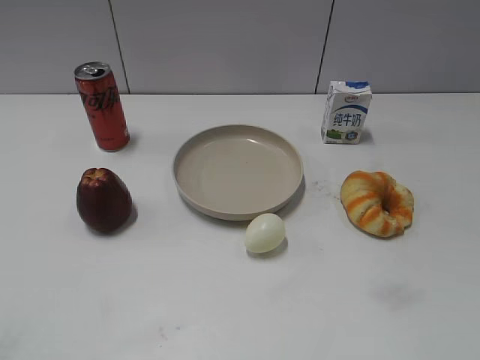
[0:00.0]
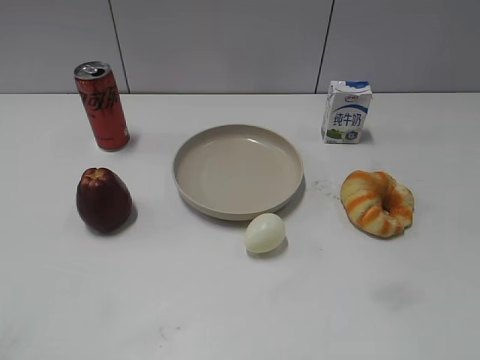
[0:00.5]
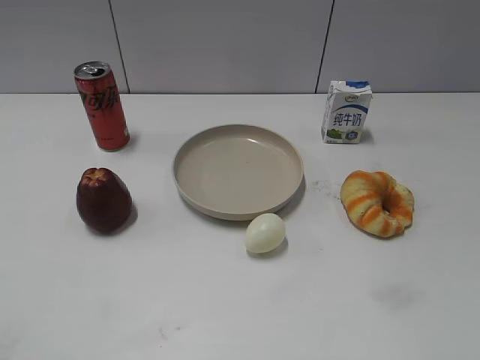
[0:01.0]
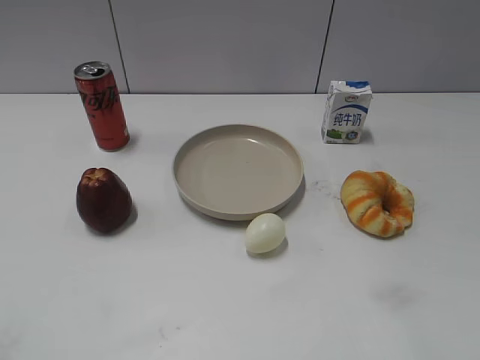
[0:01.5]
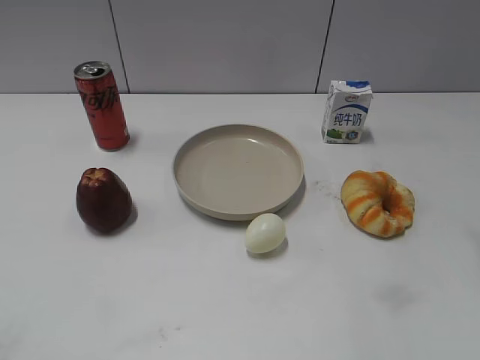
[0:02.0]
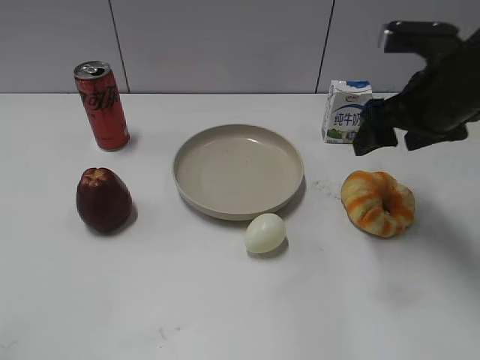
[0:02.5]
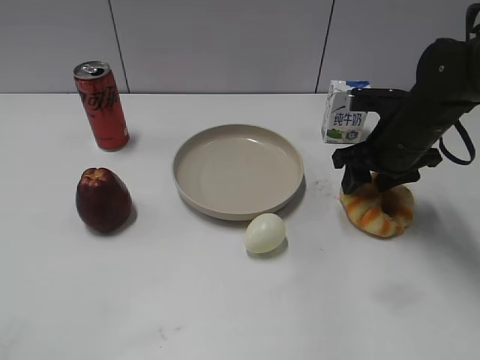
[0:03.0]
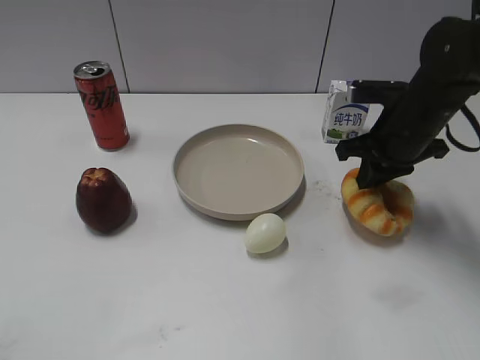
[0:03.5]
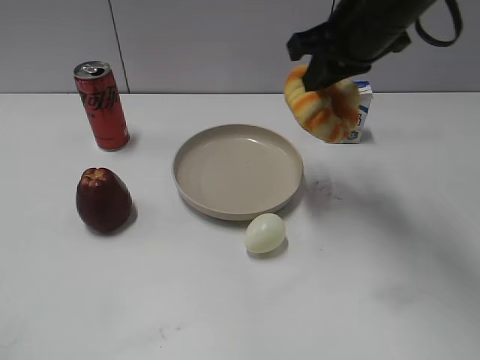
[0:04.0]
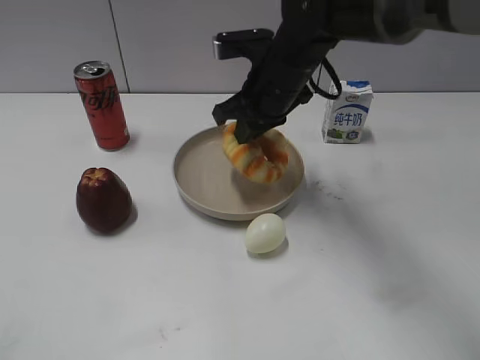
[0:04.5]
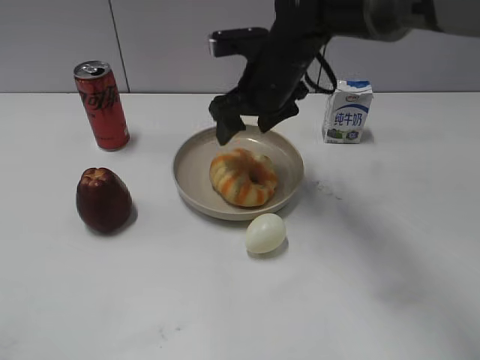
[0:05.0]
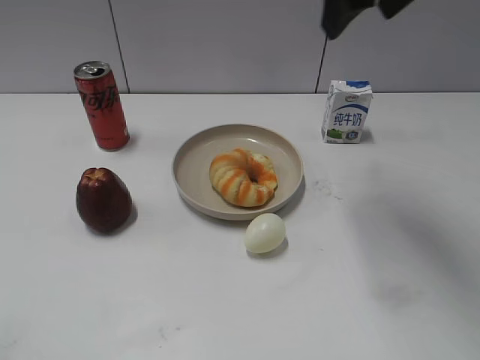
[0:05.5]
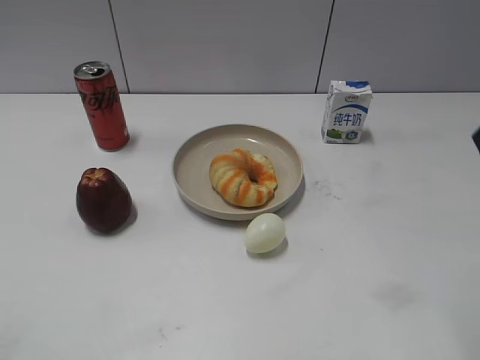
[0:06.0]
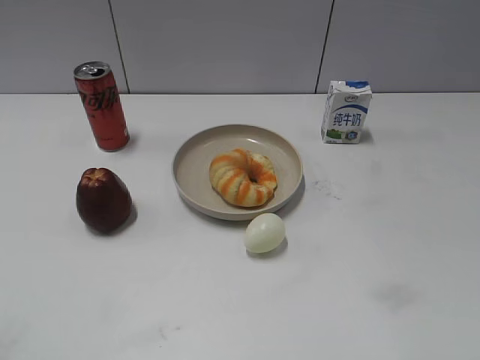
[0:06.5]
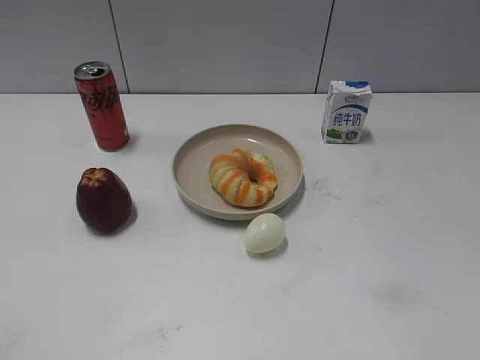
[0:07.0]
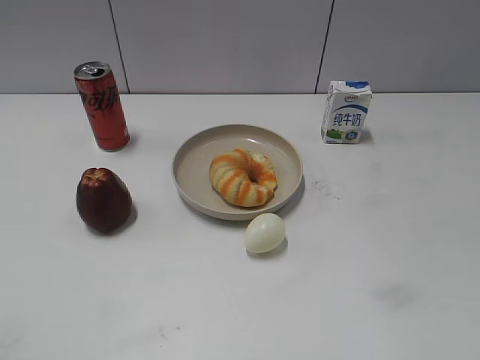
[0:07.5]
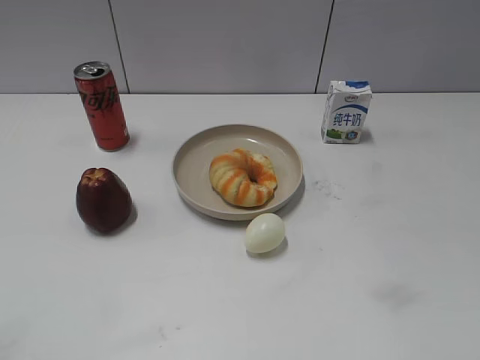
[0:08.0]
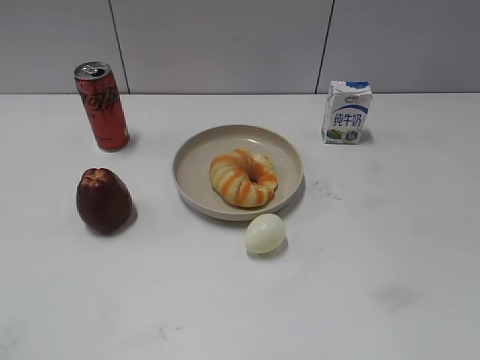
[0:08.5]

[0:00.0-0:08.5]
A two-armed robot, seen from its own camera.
Step, 0:01.5 to 0:03.0: Grasp the round bread with right gripper.
Step, 0:03.5 to 0:05.0: Place the round bread on the plate with right gripper.
0:02.0 to 0:04.0: The right gripper heads to the left and forward, covering roughly 25 cm, and closes its fingers.
0:04.0 to 0:06.5: The right gripper moves backward and to the right, some 35 cm, and opens.

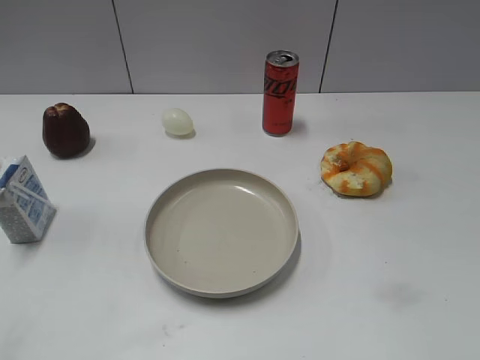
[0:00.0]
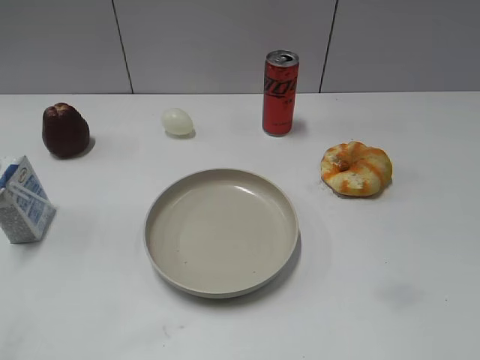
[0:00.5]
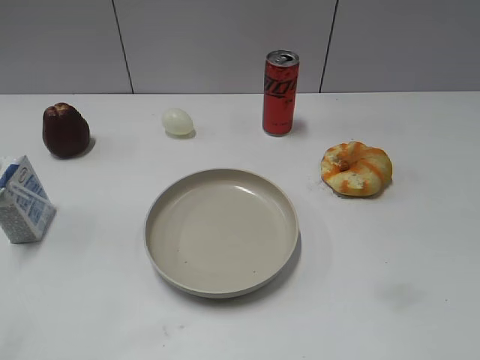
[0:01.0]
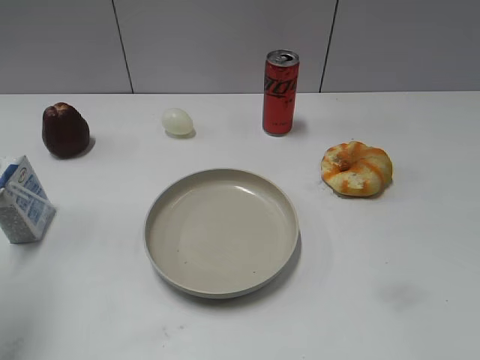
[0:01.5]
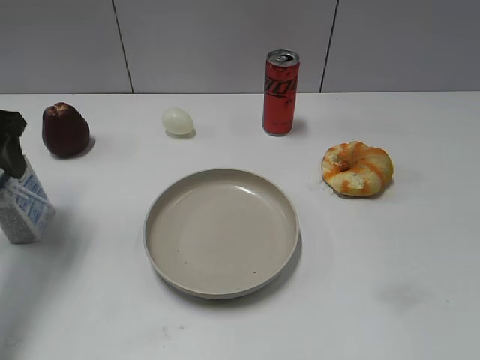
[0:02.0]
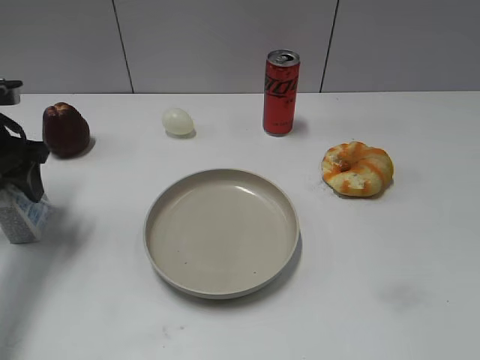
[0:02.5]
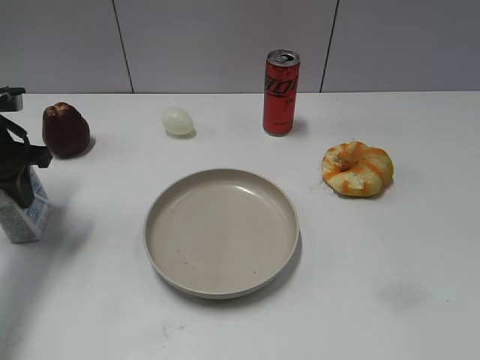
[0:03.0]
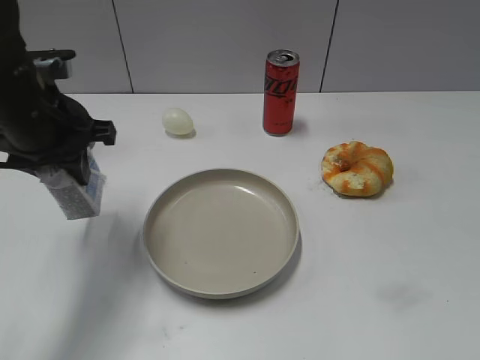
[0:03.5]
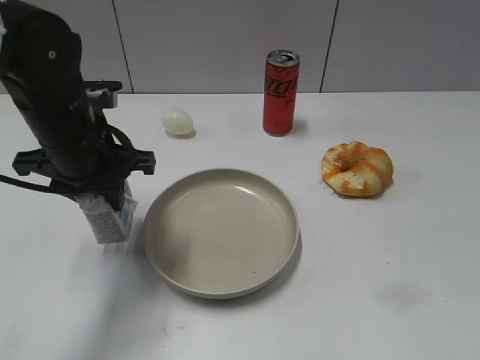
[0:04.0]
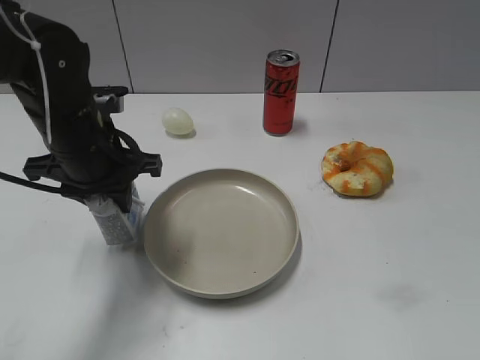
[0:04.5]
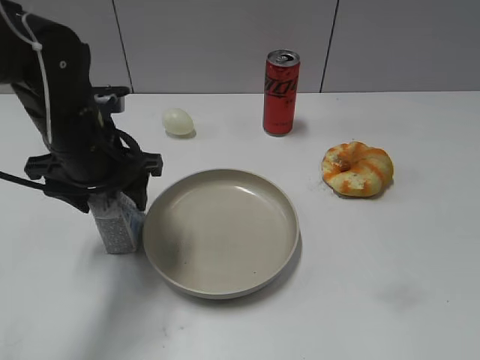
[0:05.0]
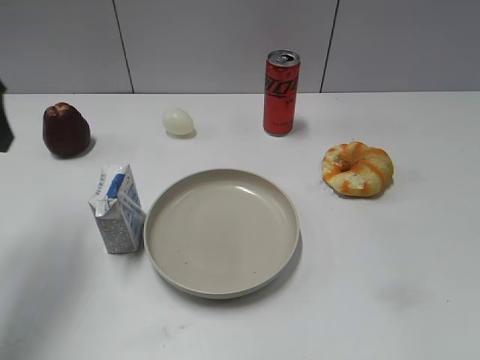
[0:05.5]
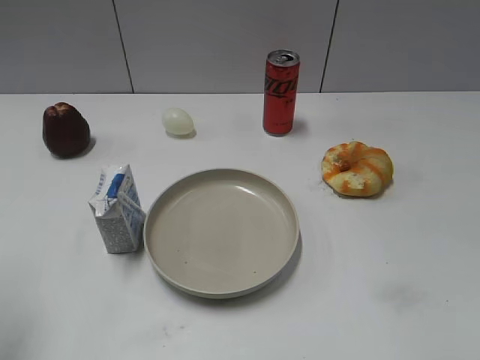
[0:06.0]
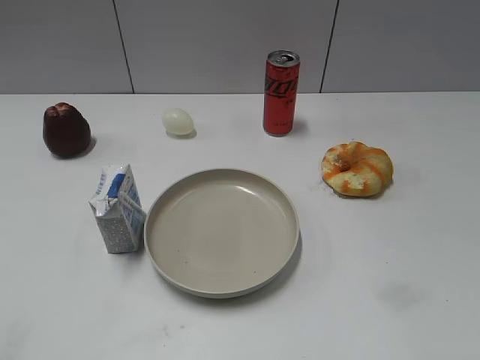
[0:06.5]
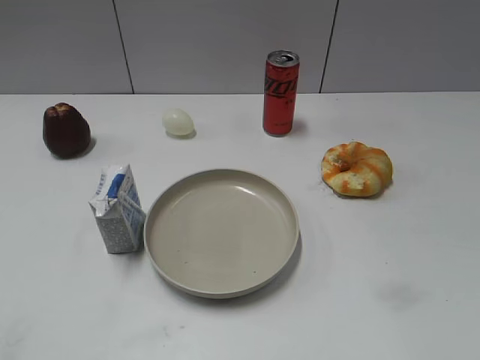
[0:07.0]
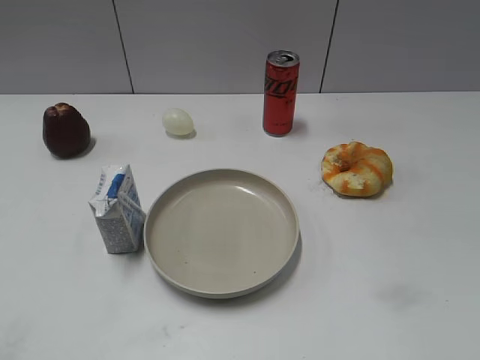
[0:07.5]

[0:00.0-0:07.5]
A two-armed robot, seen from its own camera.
Step, 0:01.0 to 0:03.0: Grasp the milk with left gripper.
Step, 0:03.5 to 0:05.0: Place the milk on the table with left gripper.
0:02.0 to 0:04.0: The left gripper is displaced to the right by some 15 cm, and closes up.
0:04.0 to 0:05.5: The left gripper goes roughly 15 cm to the left and upward, and opens its fingers.
0:05.5 to 0:07.5: The left gripper moves backward, about 25 cm.
